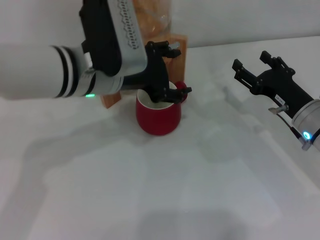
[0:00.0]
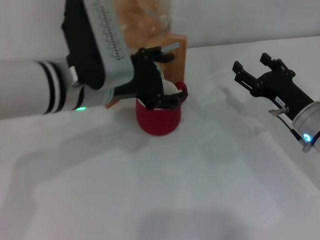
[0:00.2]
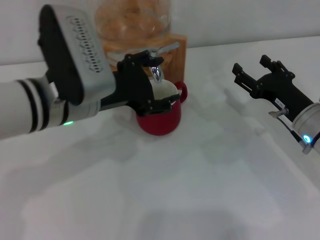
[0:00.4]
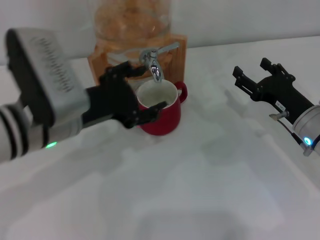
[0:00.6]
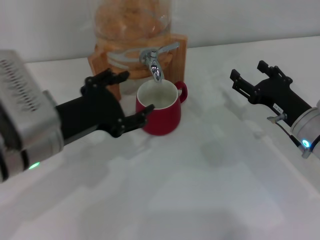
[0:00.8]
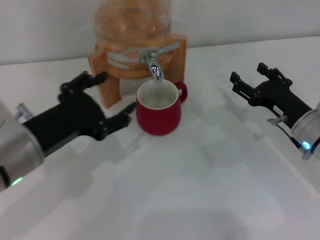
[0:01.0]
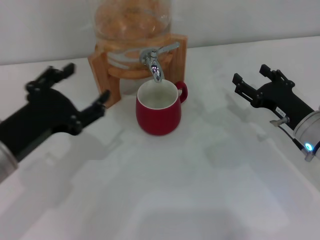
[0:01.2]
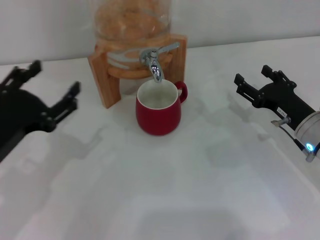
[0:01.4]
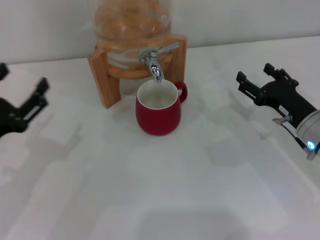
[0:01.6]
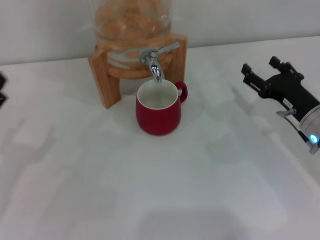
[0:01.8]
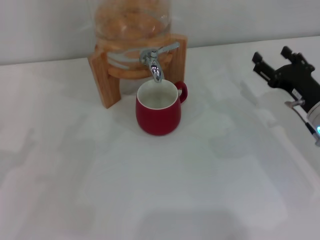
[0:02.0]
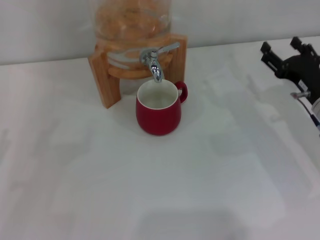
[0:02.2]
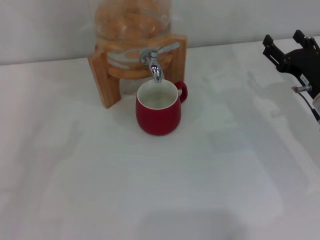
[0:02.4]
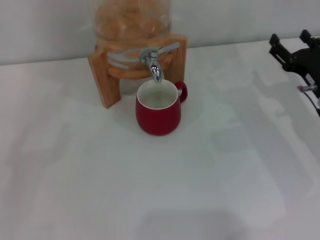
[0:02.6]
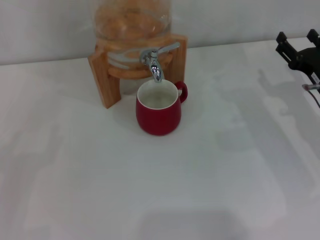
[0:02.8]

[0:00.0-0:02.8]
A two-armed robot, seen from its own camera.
Task of the whole recording: the right gripper pick up the red cup and place it horizontally under the faucet, the left gripper turn on the faucet to fill the cup, and then turn off the faucet.
0:00.0 to 0:01.4: The left gripper travels to the left and backward by about 20 cm.
0:01.4 to 0:02.8: The left gripper moves to the left and downward, roughly 15 cm.
